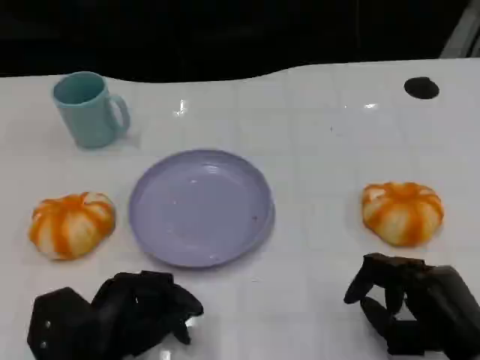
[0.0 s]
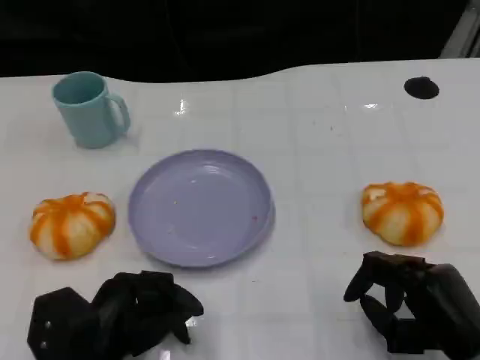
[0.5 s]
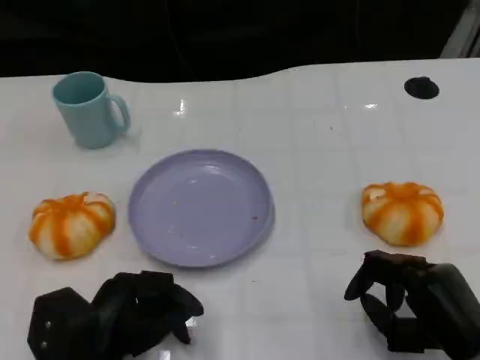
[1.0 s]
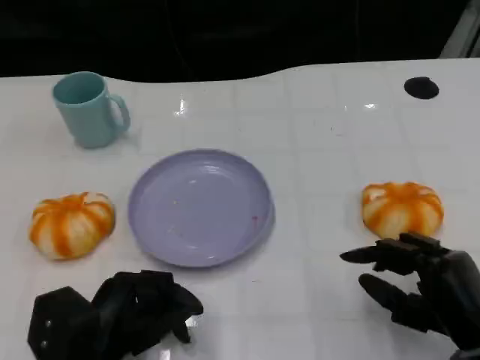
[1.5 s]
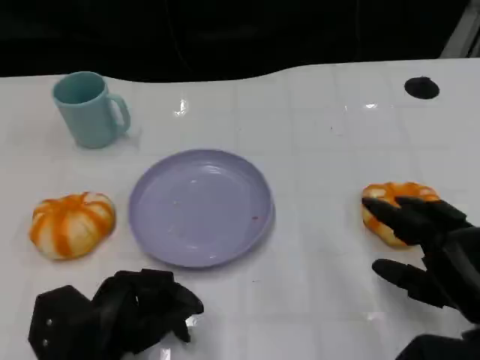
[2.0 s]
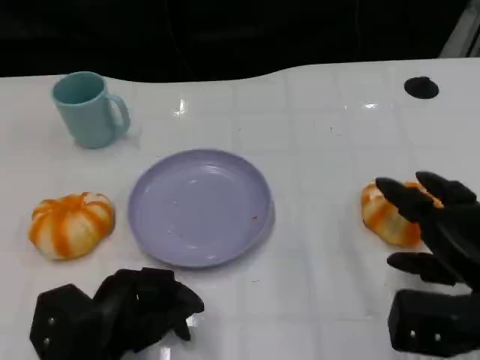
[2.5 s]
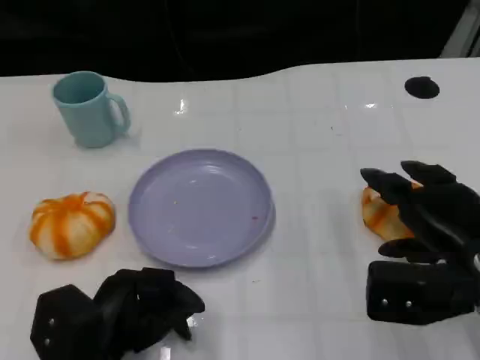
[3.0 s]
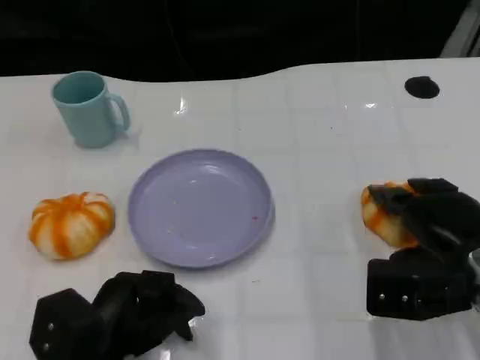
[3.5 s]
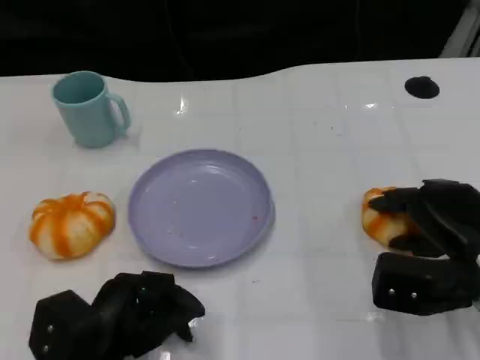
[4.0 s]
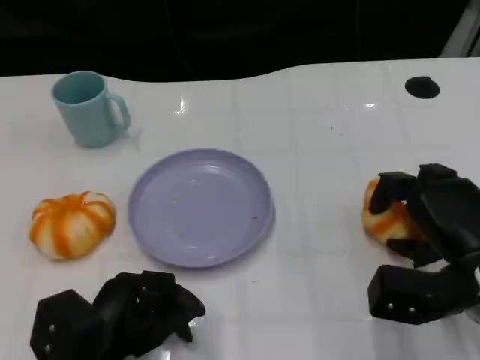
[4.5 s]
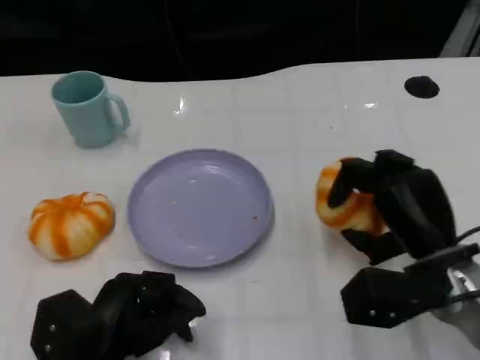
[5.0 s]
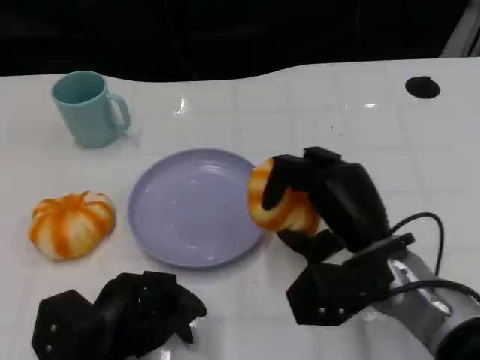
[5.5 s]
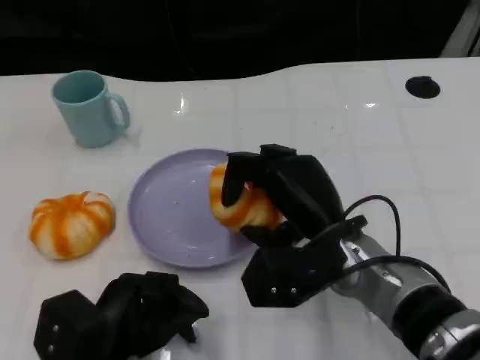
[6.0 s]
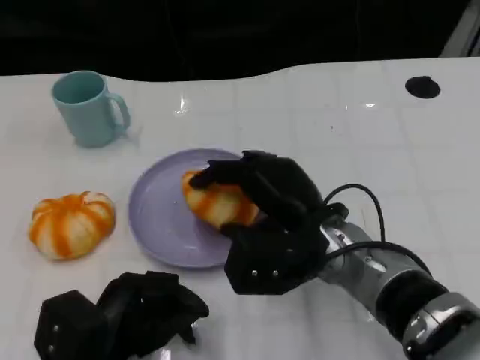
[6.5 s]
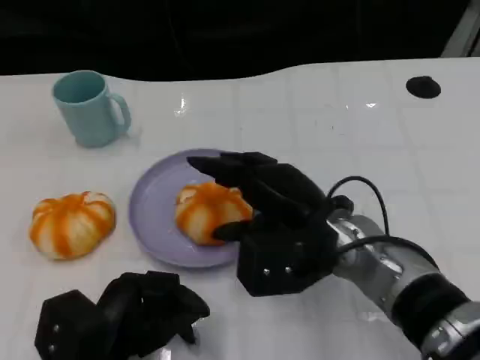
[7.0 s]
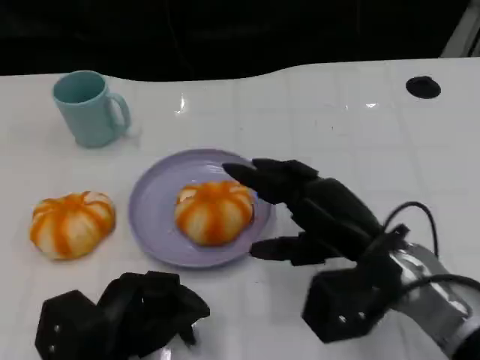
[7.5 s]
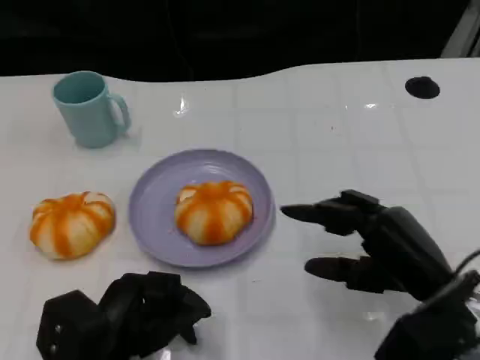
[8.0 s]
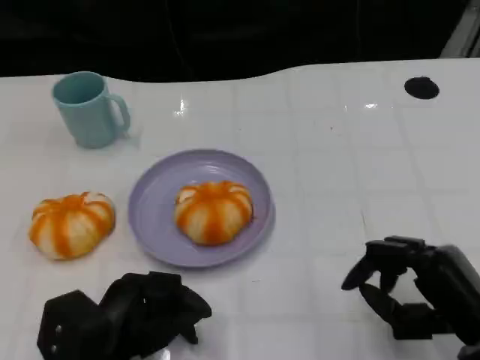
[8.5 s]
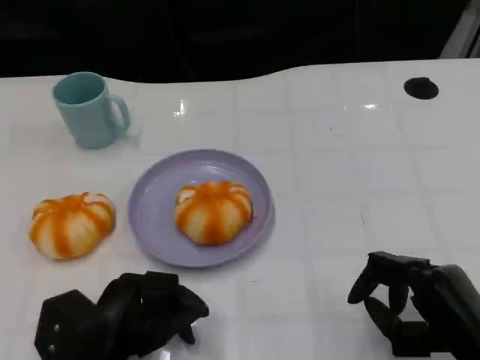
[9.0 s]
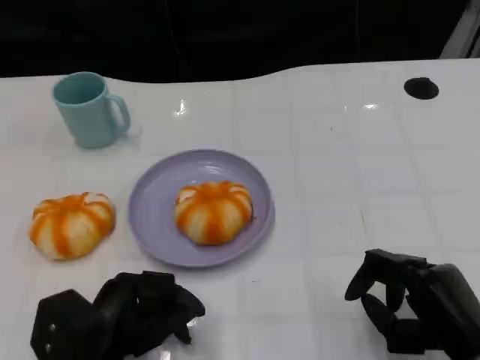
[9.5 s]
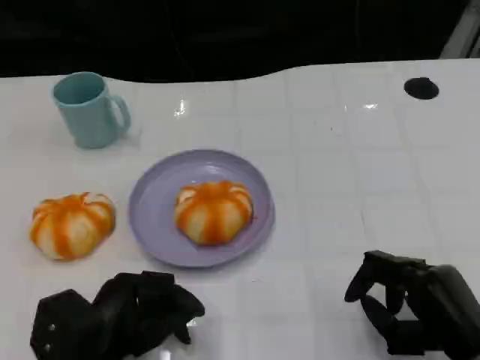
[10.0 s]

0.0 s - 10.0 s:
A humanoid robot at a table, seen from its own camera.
Task of the whole recording: Grasp the bread from the table and place it into the plate.
0.0 s - 2.0 s: The hands stay close to where they were, moving slightly.
2.0 s - 4.0 s: The right hand moves forward, about 5 cm.
4.0 s - 6.0 s: The right hand is displaced to the left by about 15 cm.
6.0 s - 8.0 s: The right hand travels to the right and backward by roughly 15 cm.
8.0 s - 10.0 s: The right hand ends up approximately 5 cm from where it was.

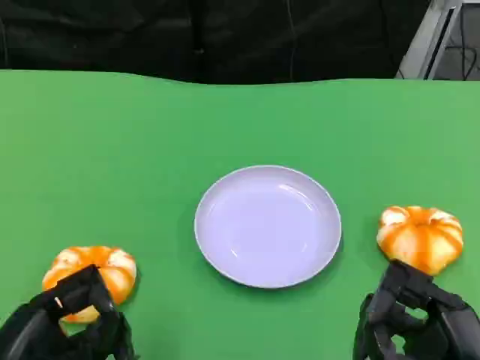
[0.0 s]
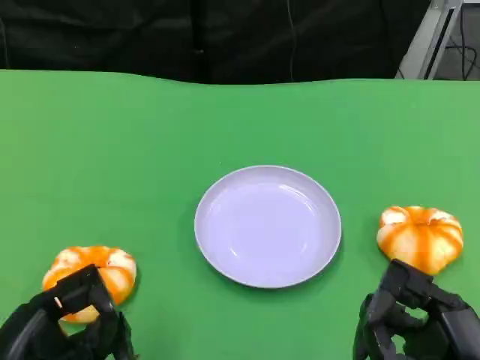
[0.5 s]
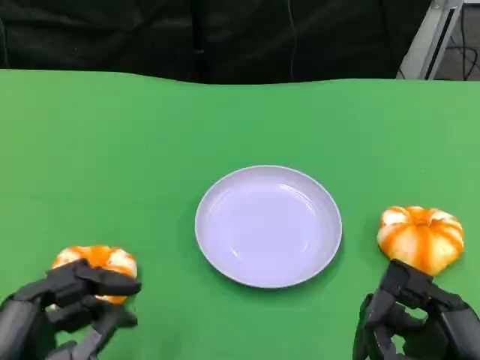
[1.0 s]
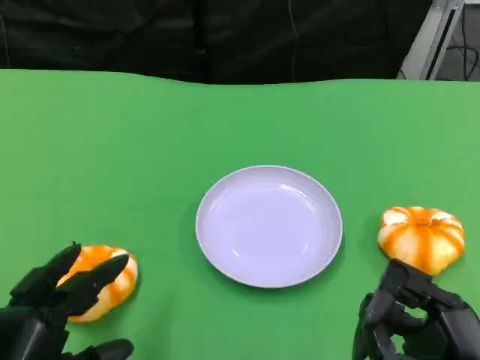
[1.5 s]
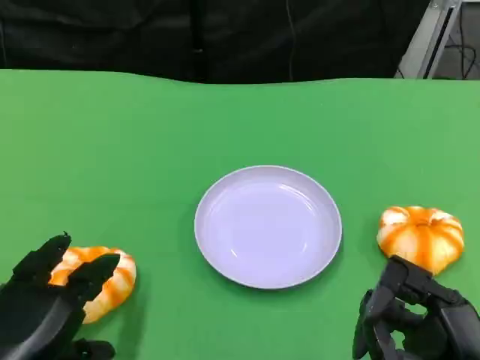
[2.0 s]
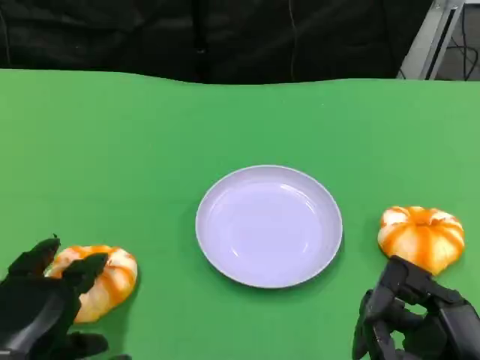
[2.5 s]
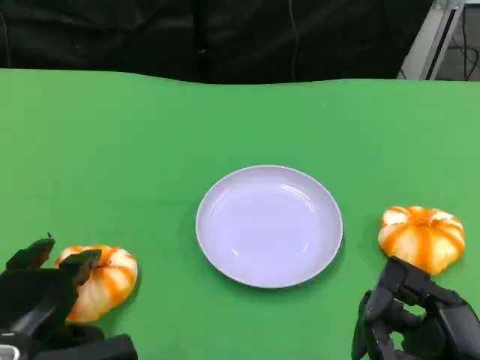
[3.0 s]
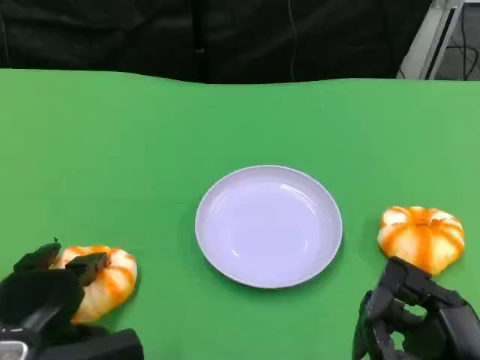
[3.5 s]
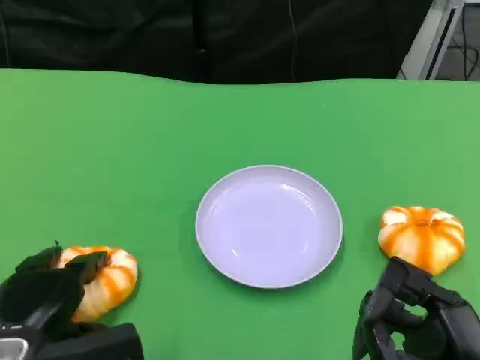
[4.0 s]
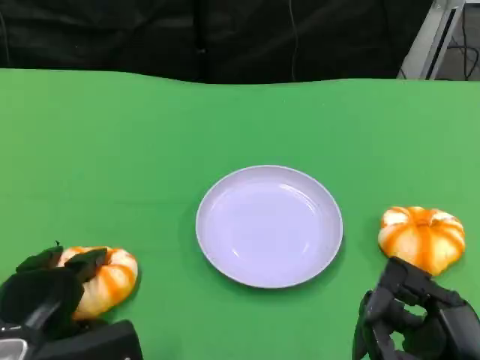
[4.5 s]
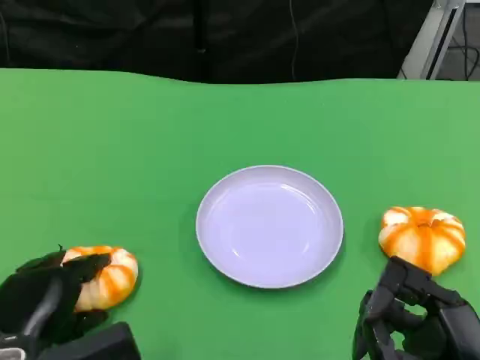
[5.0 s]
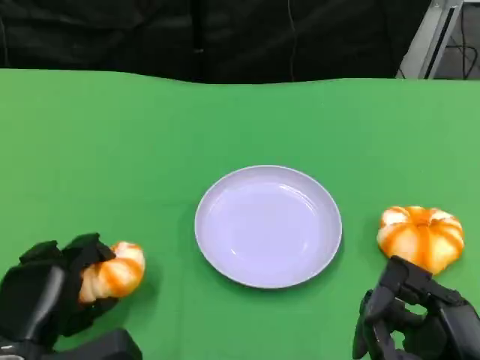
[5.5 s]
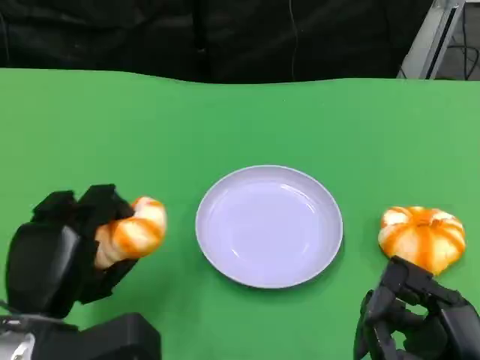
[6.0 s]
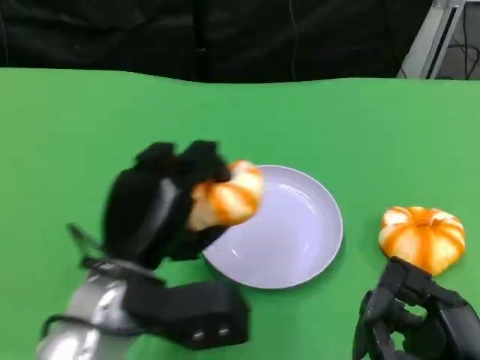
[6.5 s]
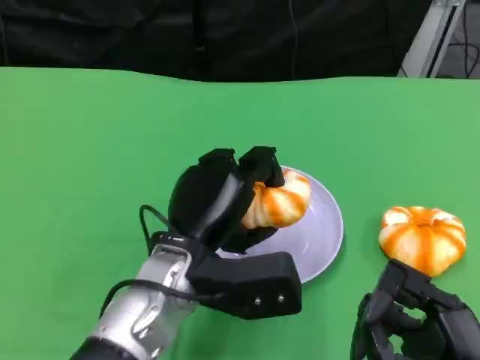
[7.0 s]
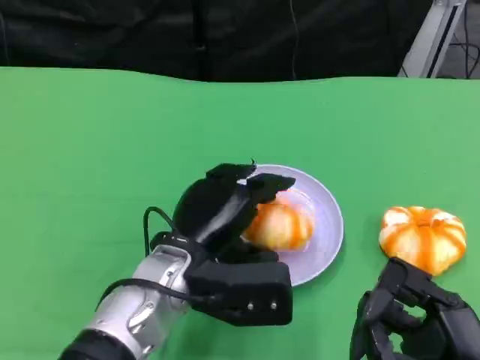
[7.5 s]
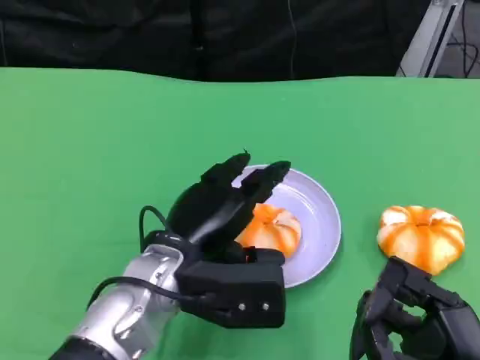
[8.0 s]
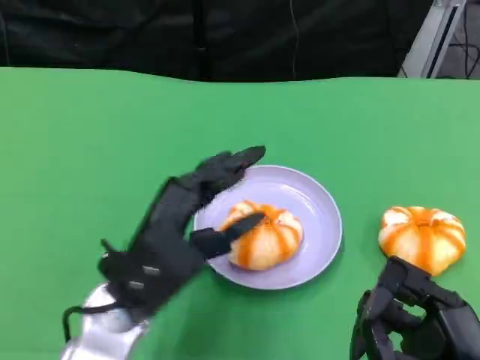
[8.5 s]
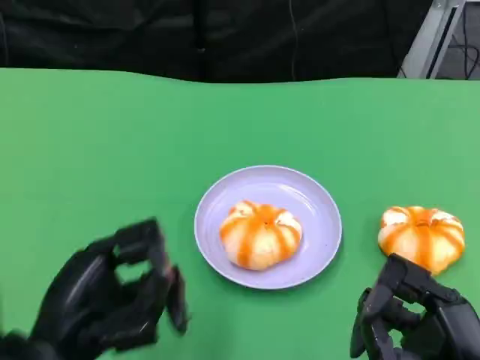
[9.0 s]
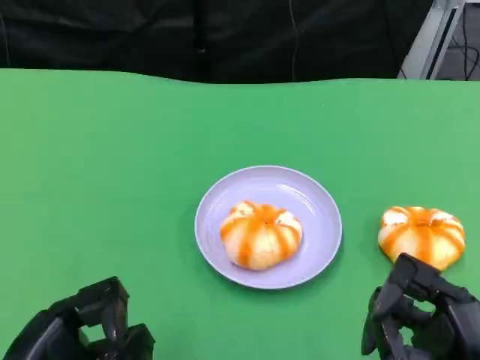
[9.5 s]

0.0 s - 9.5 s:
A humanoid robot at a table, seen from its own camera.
Task of the whole recording: Grasp the bread from the table and place it into the plate.
2.0 s - 4.0 s: The left hand shifts by some 5 cm.
5.5 s - 7.5 s: The left hand is displaced to the right and forward by some 15 cm.
7.5 s - 9.5 s: The left hand shifts some 20 cm to the left and backward.

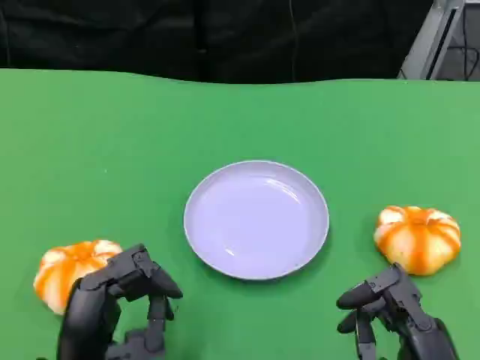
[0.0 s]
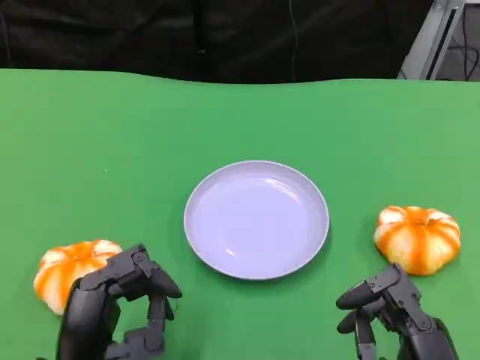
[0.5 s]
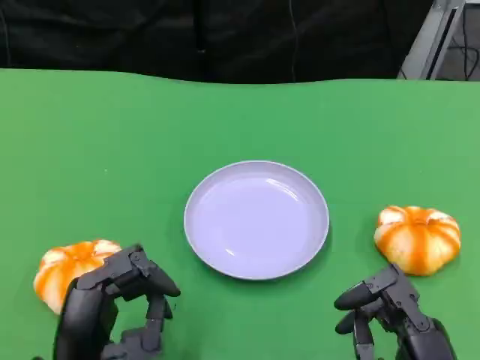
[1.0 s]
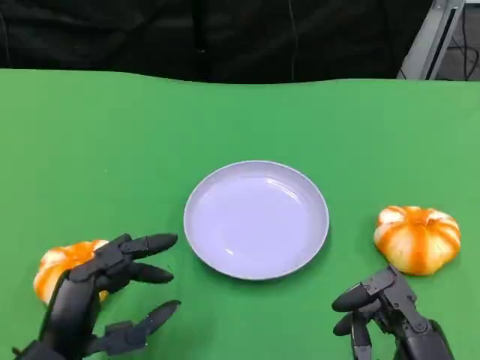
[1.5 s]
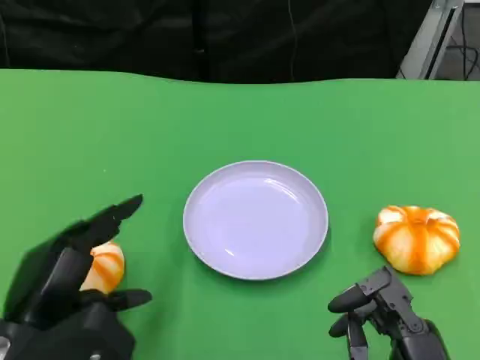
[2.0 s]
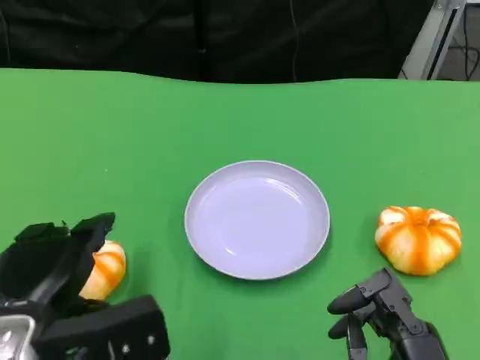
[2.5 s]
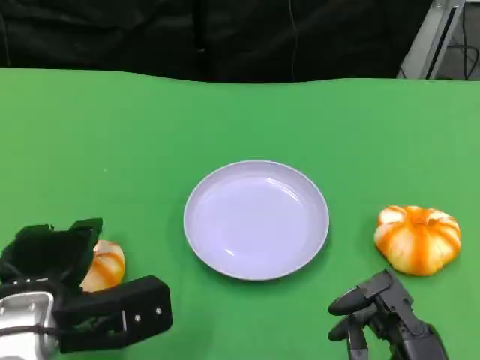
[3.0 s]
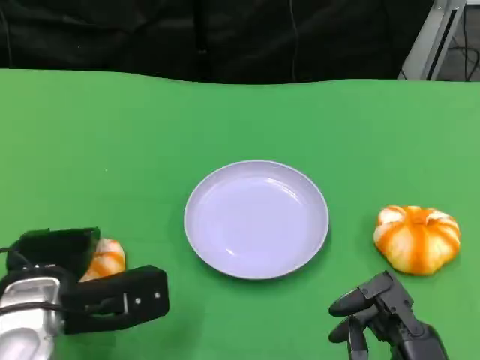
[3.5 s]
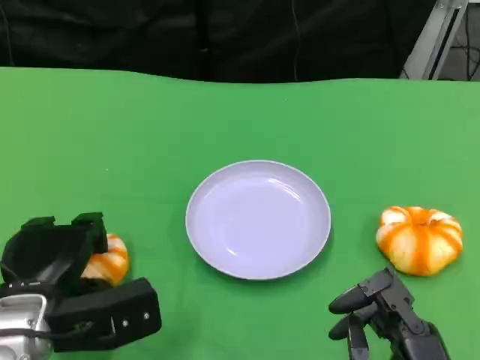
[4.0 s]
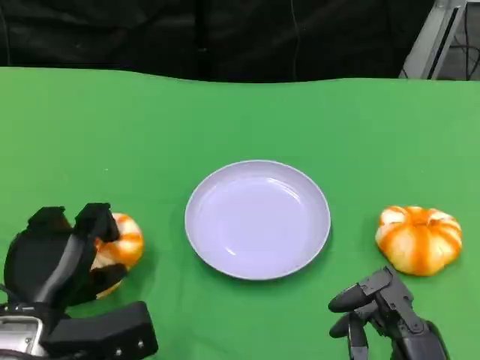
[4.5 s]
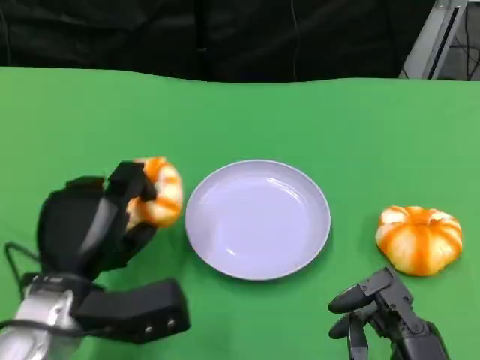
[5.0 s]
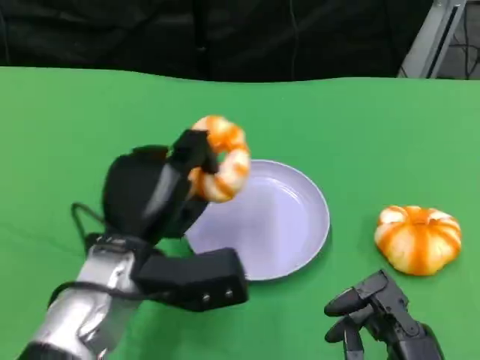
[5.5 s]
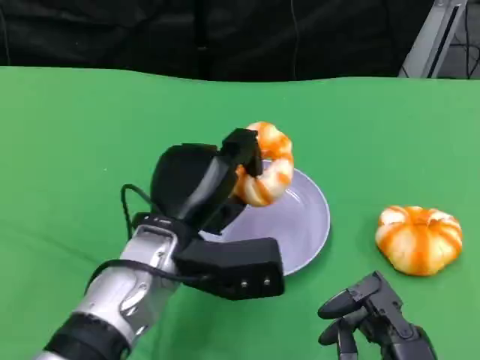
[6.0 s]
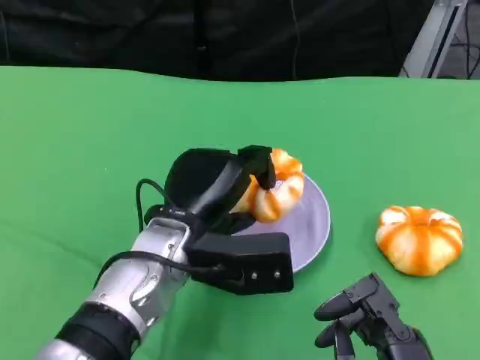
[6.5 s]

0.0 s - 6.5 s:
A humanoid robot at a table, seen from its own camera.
Task of the whole recording: Grasp the bread from the table and place it into the plate.
0.0 s - 2.0 s: The left hand shifts about 5 cm upward.
2.0 s - 4.5 s: The left hand moves downward, roughly 5 cm.
4.5 s - 6.5 s: The left hand shifts roughly 15 cm to the right, upward and forward.
